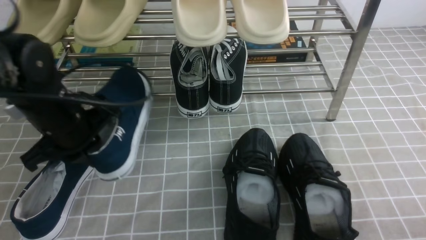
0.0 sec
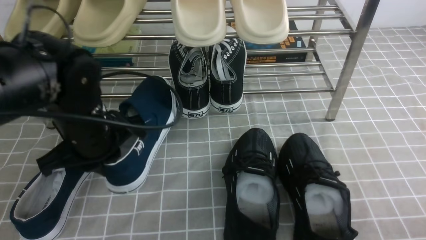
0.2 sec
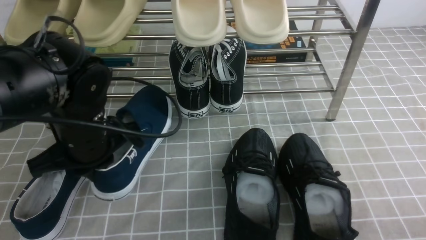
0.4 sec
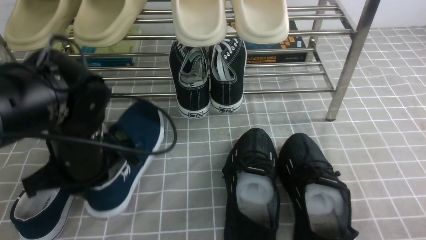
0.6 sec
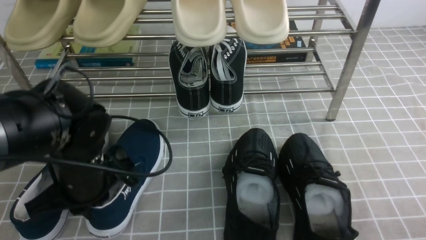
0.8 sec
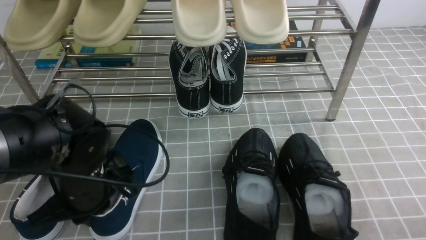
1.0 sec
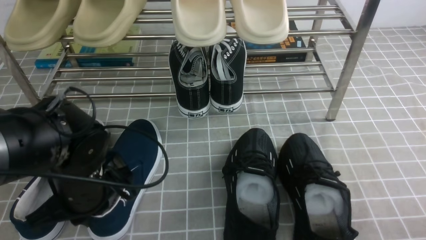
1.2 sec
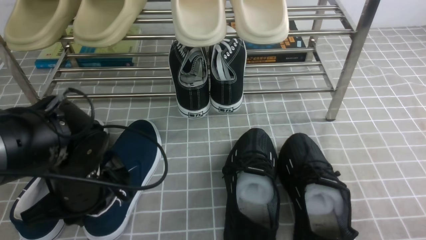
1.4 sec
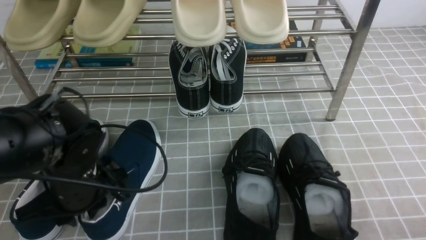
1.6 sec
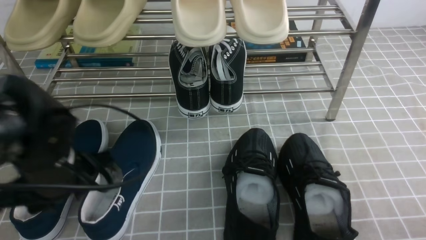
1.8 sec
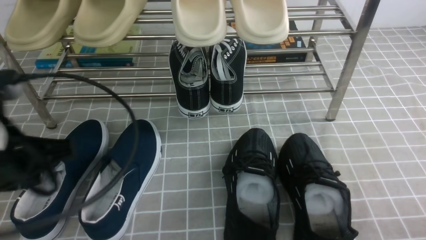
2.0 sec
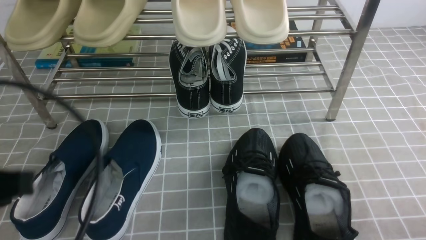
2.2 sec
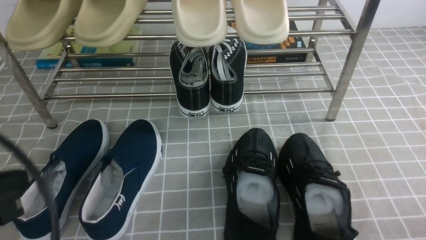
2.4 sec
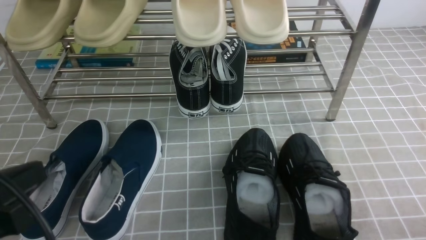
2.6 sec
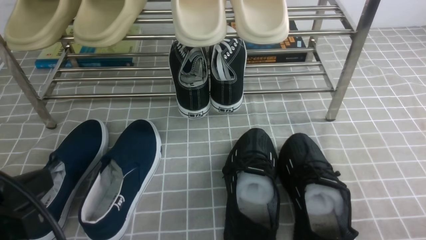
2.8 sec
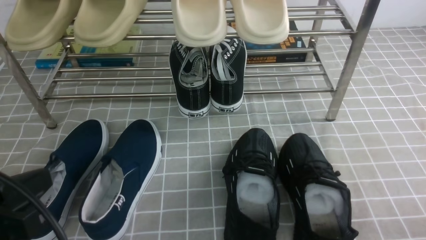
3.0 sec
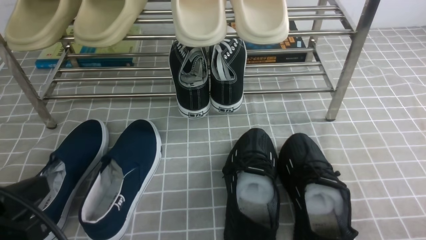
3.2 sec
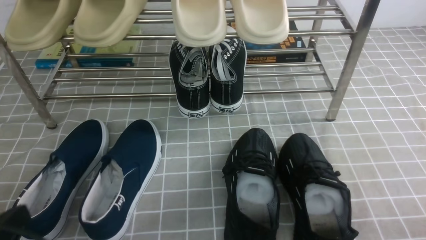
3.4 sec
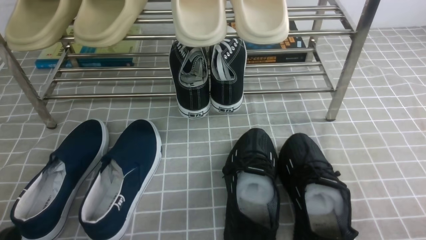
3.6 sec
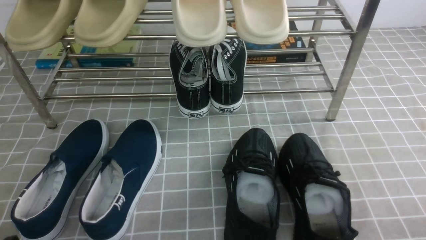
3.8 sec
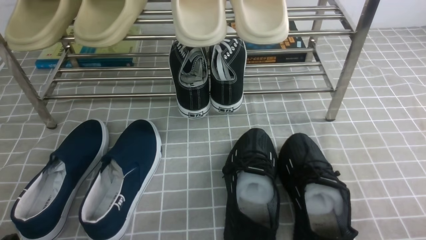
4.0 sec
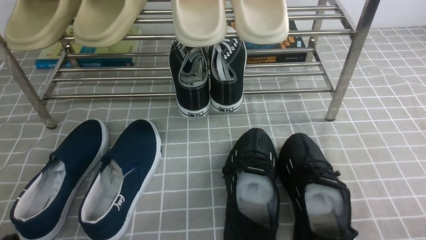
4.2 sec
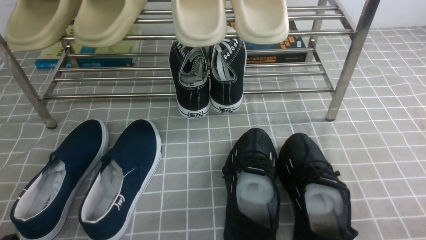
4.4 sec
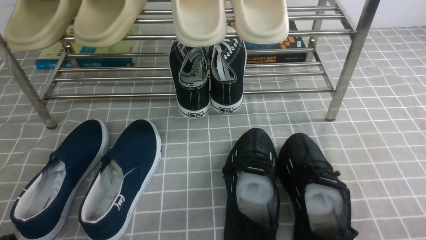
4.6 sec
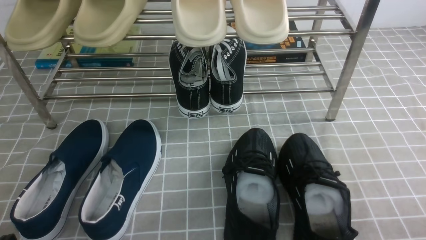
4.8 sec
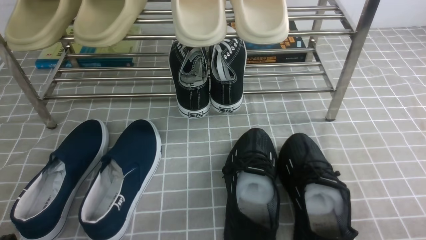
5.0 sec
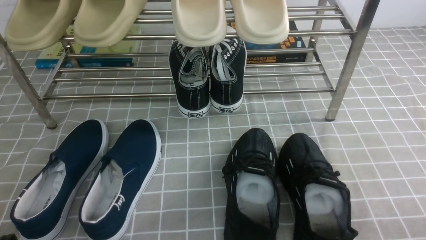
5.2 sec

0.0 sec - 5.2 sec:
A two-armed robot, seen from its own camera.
Step, 0.0 sec - 1.8 sec: Use your left arm to remove the clamped shoe from the shoe rack and put it down.
0.0 sec - 1.8 sec: The left gripper heads backward, covering about 10 cm, and opens.
1.8 sec - 3.4 sec: The left gripper travels backward and to the left by about 15 cm, and closes.
3.4 sec - 5.2 sec: The left gripper is displaced downward by some 5 cm.

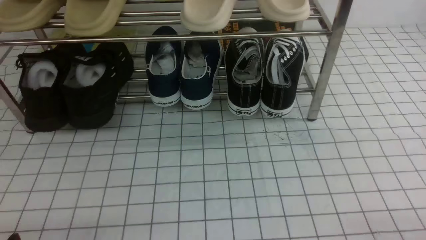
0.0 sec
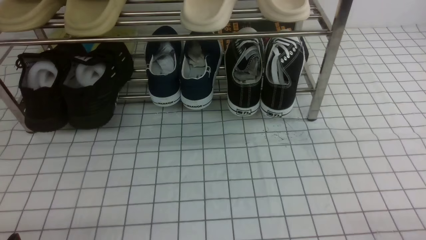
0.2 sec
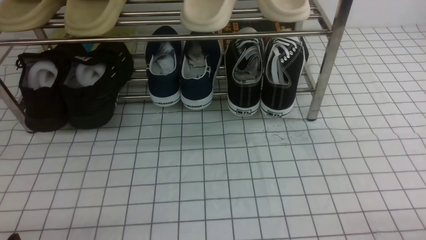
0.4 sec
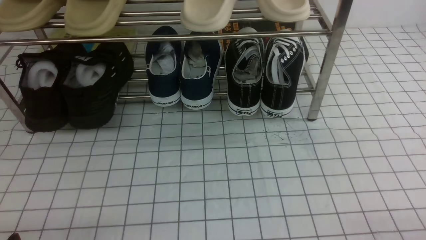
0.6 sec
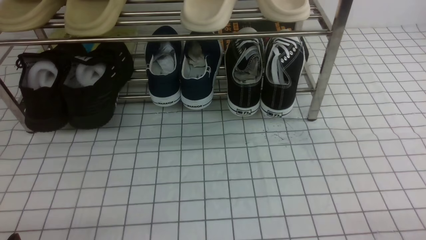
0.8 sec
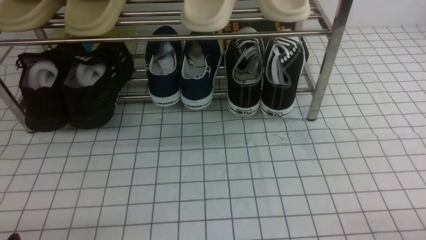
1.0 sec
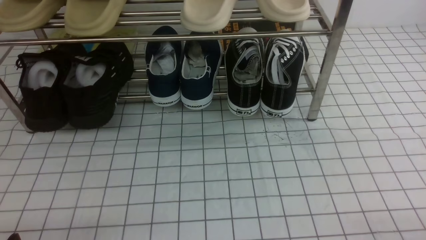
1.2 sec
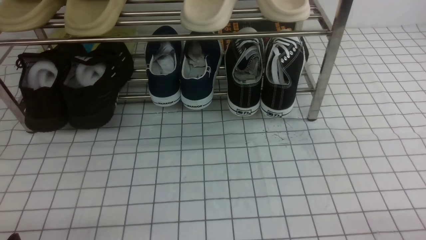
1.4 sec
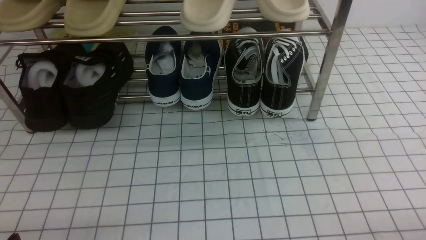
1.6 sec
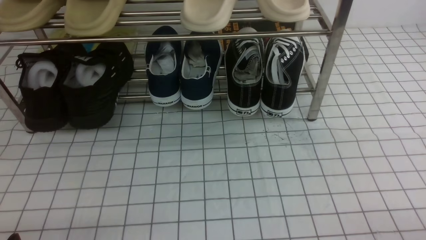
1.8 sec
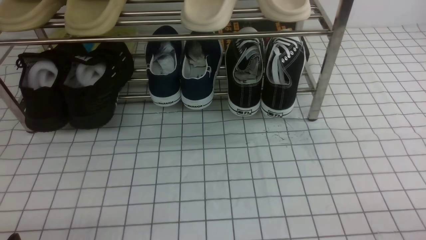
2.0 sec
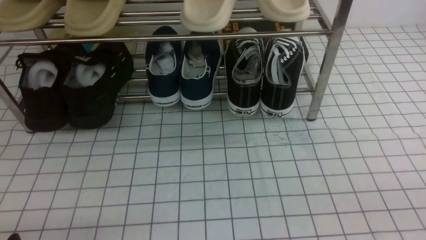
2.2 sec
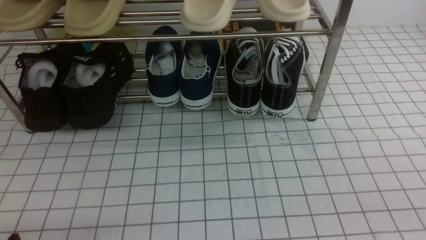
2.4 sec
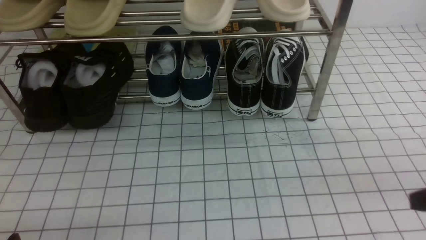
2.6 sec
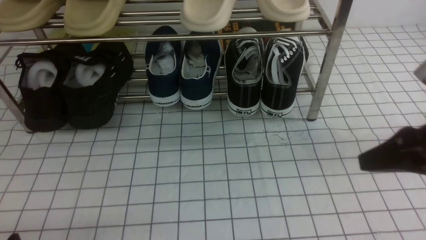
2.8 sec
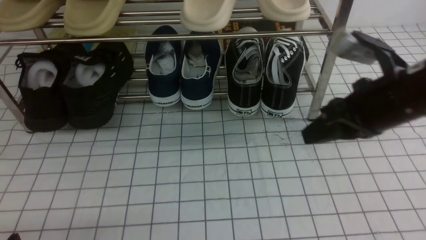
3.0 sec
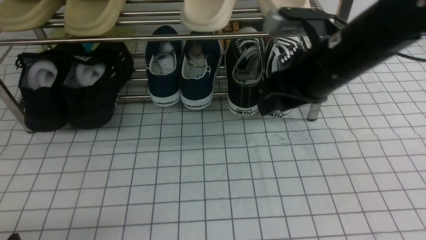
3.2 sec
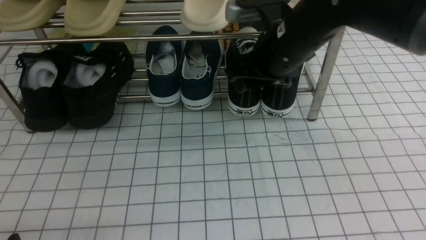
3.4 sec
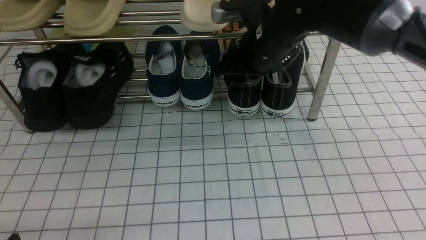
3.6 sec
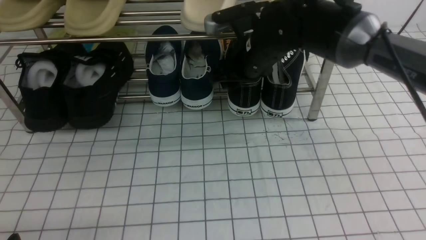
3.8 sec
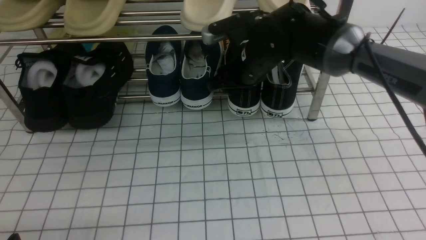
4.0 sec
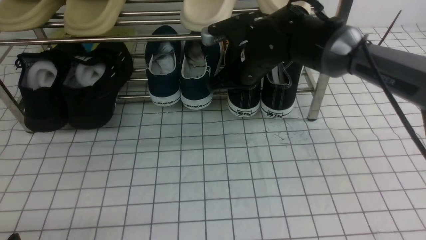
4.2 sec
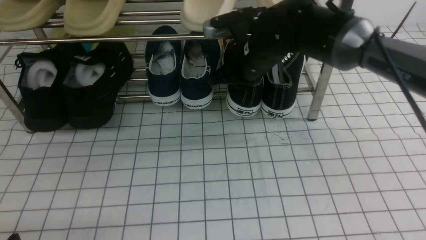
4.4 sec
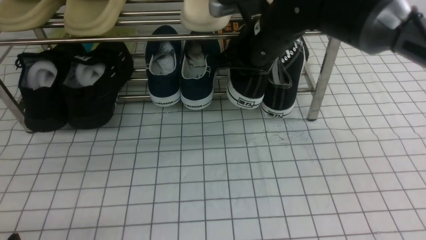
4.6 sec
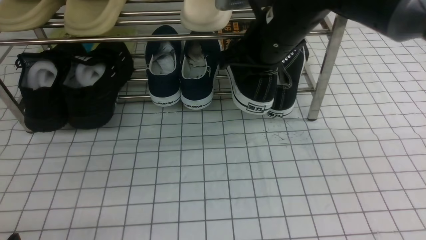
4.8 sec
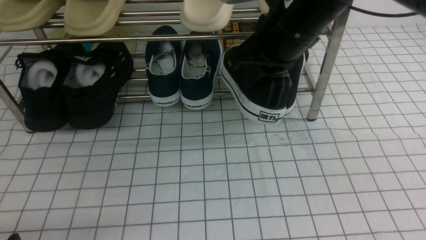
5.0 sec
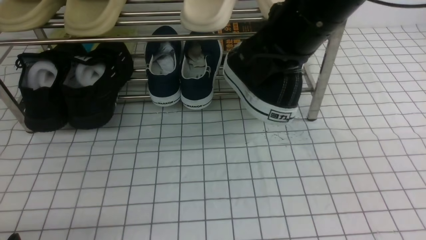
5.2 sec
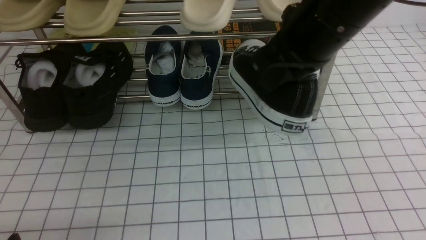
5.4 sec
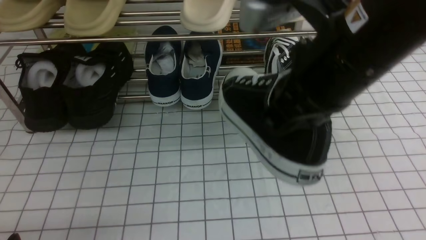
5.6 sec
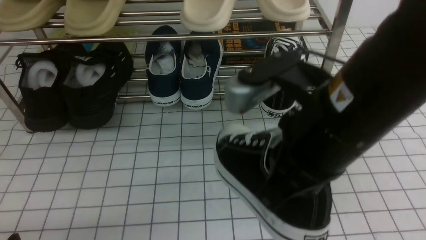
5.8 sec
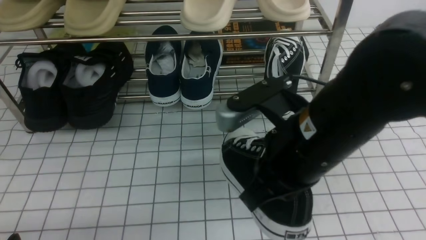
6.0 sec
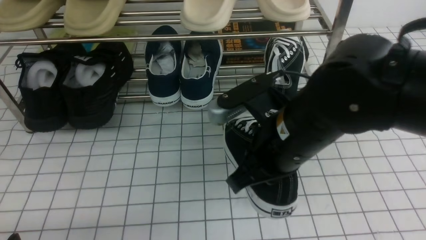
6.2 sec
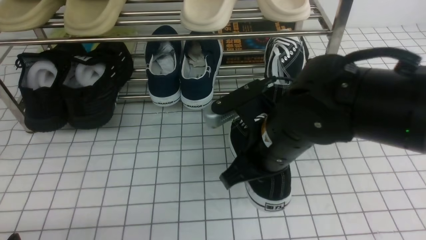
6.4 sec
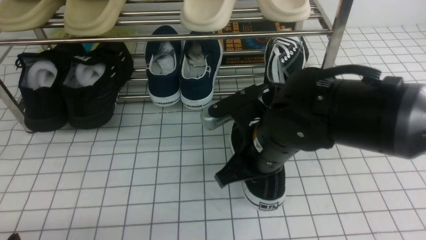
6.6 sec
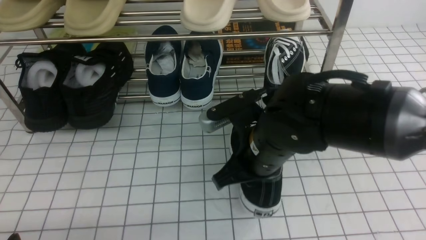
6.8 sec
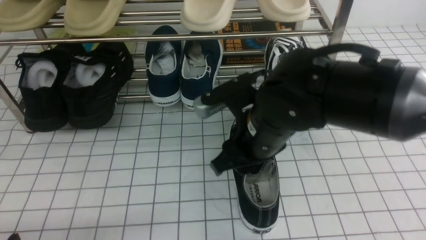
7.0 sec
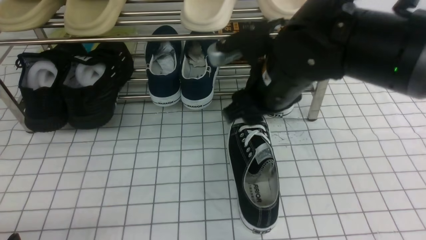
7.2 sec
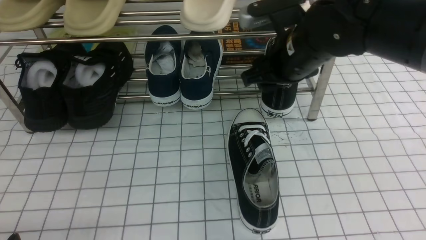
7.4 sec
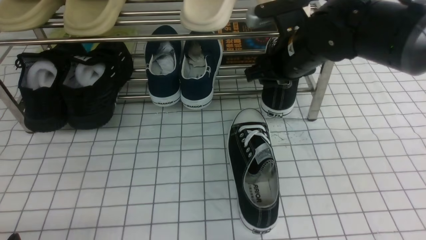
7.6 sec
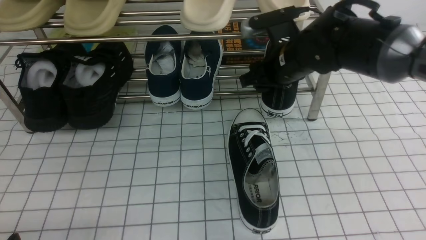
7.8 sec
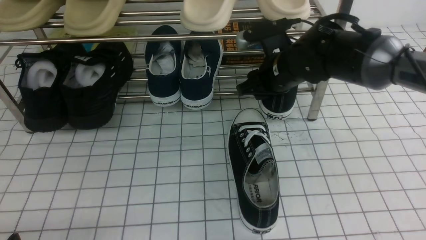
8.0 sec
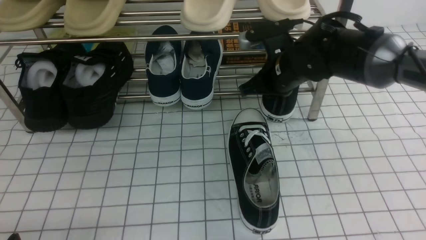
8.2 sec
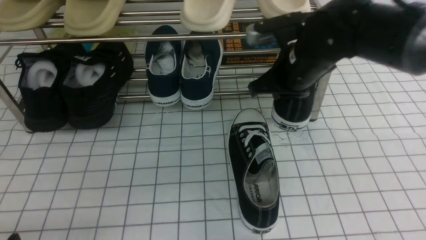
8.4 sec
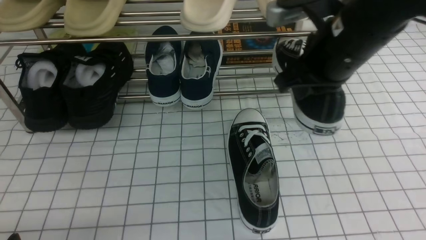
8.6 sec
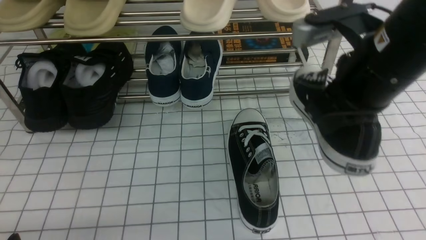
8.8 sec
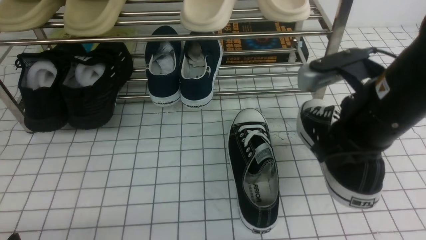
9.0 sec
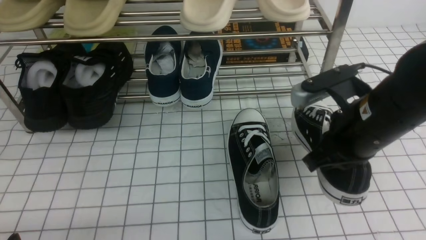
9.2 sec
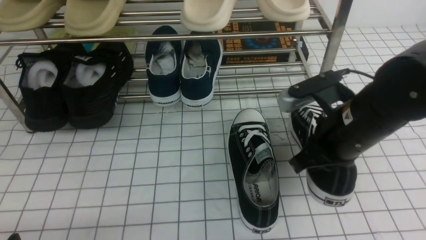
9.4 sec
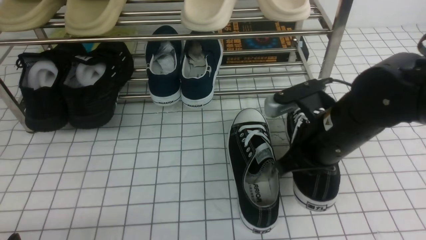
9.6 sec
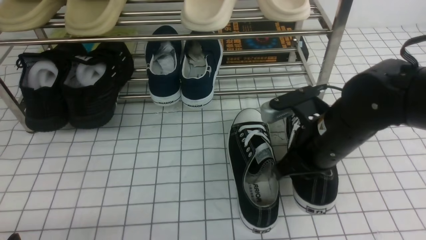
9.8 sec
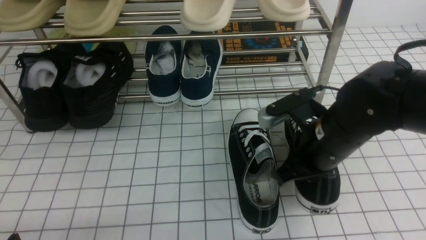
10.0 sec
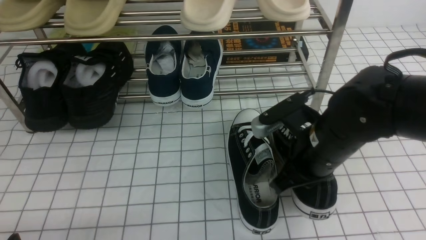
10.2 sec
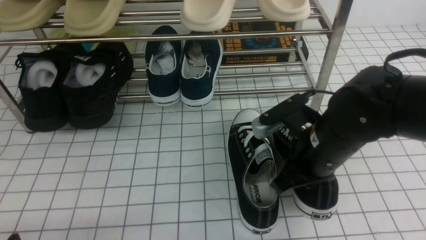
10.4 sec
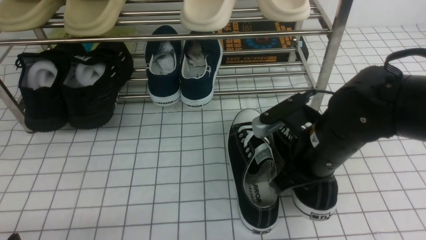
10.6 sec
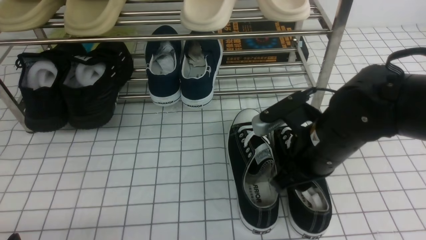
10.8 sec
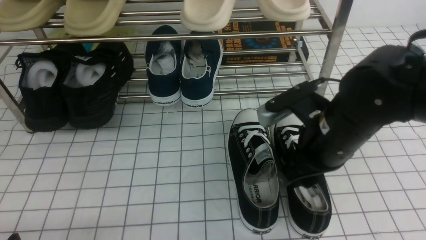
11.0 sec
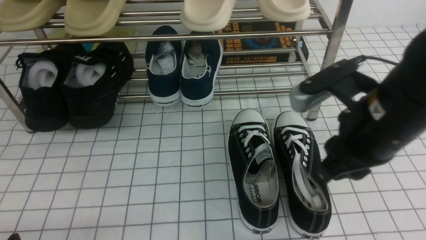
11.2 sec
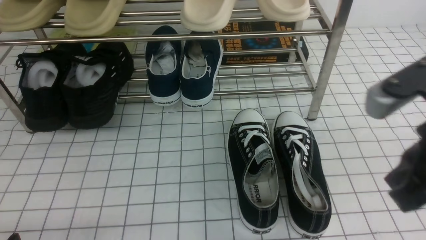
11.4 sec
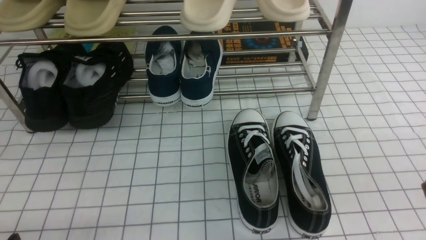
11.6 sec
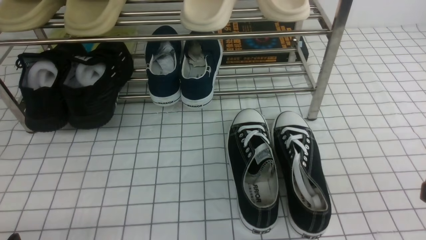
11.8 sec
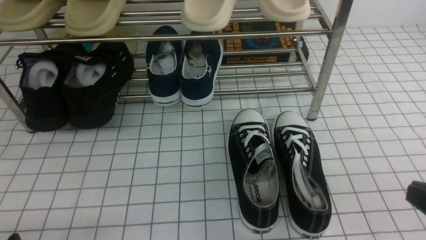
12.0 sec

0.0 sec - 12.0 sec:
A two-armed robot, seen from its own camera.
Step, 0.0 sec - 4.0 sec: use the right arm to clamp a shoe on the right side of the shoe rack.
Step, 4.4 sec - 7.0 sec: use the right arm to take out the clamped shoe from the shoe rack and put it down.
Step, 7.2 sec - 8.0 sec: use the right arm to clamp a shoe on the right side of the shoe rack.
Step, 8.2 sec - 11.2 sec: use the right arm to take out the clamped shoe from the shoe rack and put it down.
1.6 sec - 3.0 sec: The right gripper goes approximately 30 cm forward, upward and to the left, and closes, then reopens.
3.0 sec - 4.4 sec: The right gripper is displaced forward and to the left by roughly 20 cm, and closes its fingers.
4.4 sec - 6.0 sec: The right gripper shifts some 20 cm backward.
6.0 sec - 7.6 sec: The right gripper heads forward, covering some 20 cm, and opens.
7.6 sec - 9.0 sec: The right gripper is displaced backward and to the right by about 15 cm, and closes its fingers.
9.0 sec - 10.4 sec: The right gripper shifts some 10 cm downward.
10.4 sec - 12.0 sec: The right gripper is displaced backward and to the right by about 25 cm, and opens, then closes once more.
